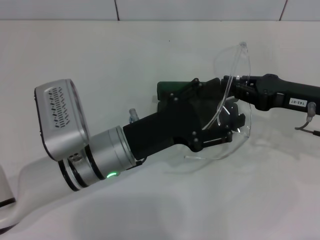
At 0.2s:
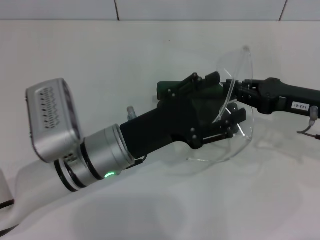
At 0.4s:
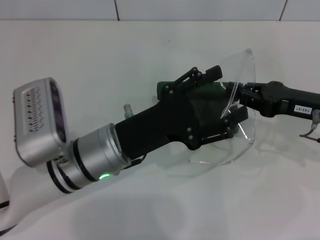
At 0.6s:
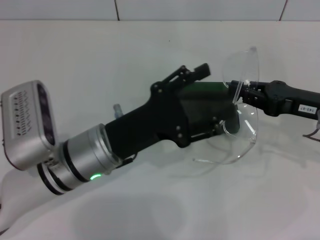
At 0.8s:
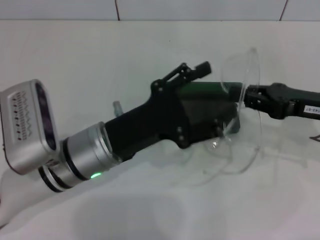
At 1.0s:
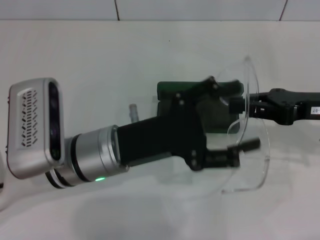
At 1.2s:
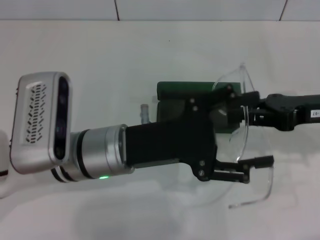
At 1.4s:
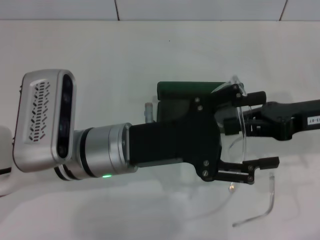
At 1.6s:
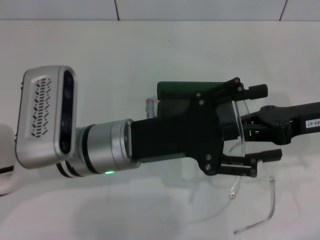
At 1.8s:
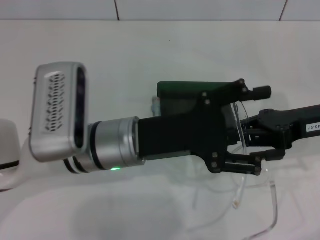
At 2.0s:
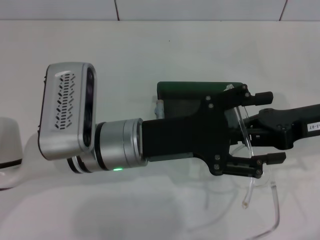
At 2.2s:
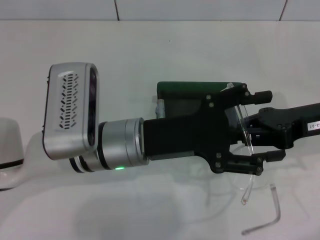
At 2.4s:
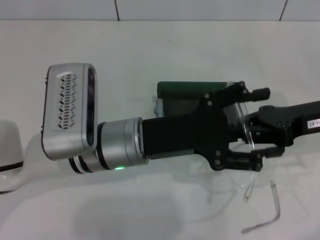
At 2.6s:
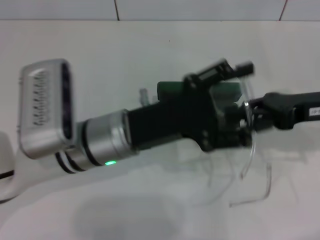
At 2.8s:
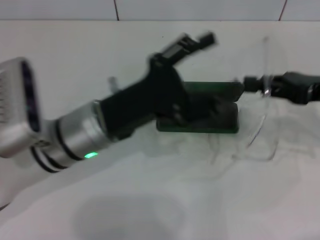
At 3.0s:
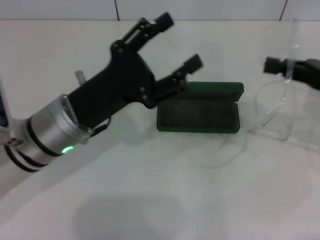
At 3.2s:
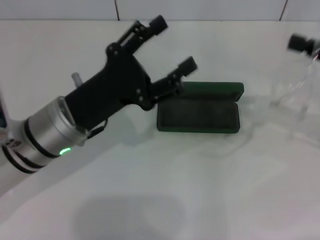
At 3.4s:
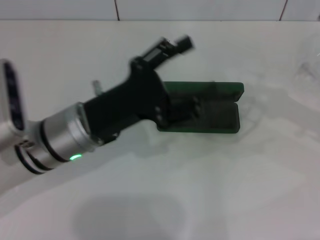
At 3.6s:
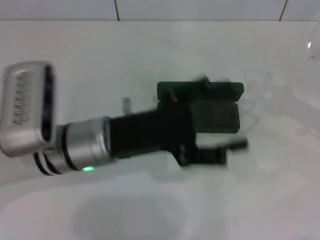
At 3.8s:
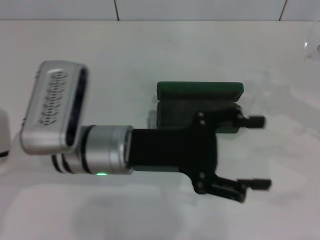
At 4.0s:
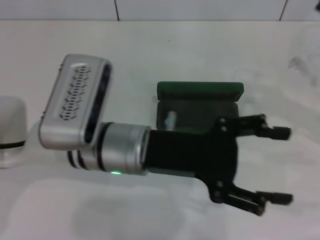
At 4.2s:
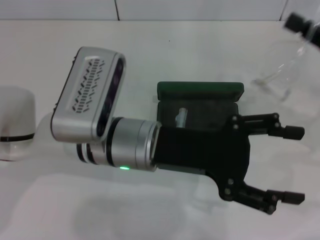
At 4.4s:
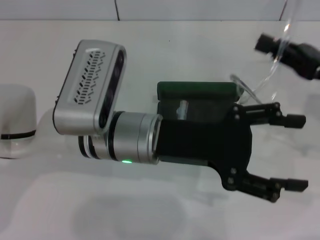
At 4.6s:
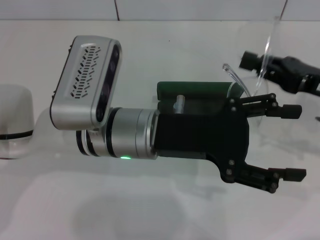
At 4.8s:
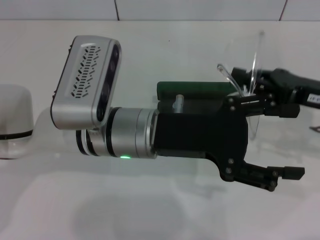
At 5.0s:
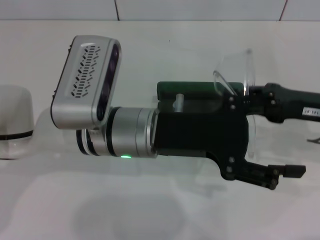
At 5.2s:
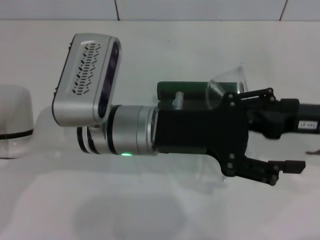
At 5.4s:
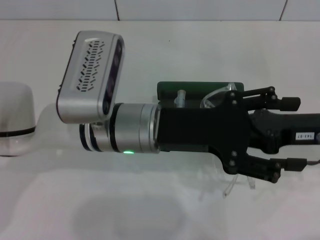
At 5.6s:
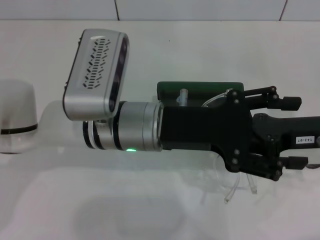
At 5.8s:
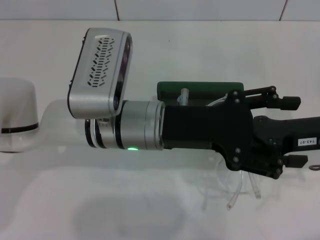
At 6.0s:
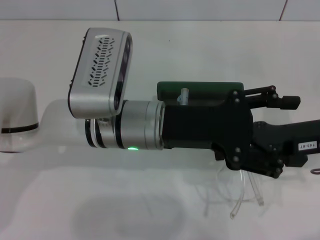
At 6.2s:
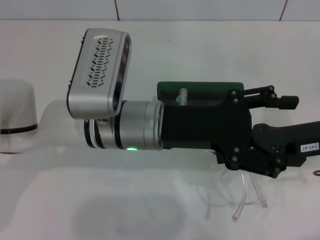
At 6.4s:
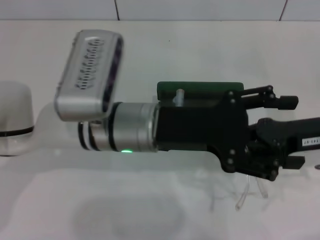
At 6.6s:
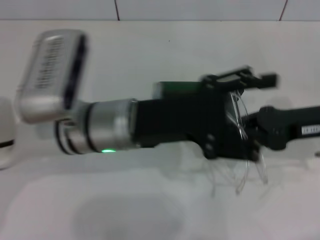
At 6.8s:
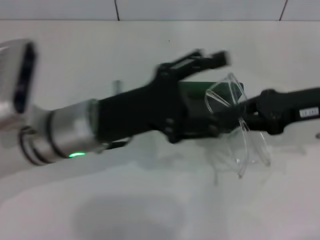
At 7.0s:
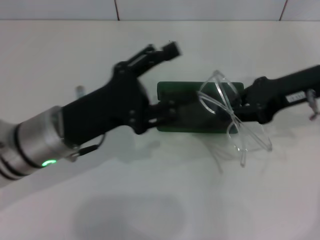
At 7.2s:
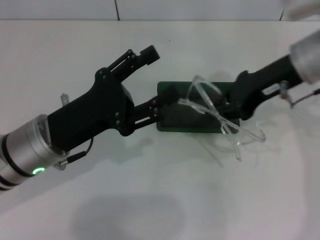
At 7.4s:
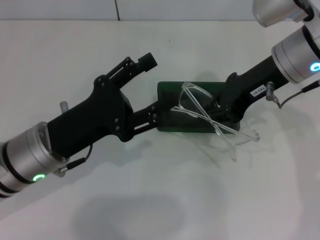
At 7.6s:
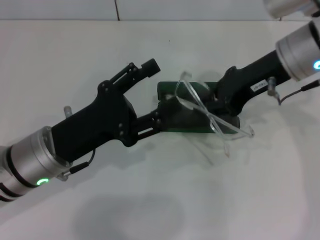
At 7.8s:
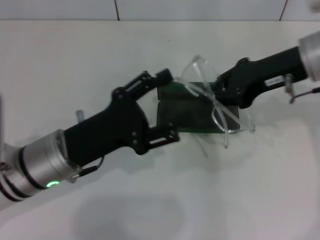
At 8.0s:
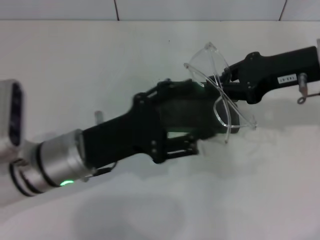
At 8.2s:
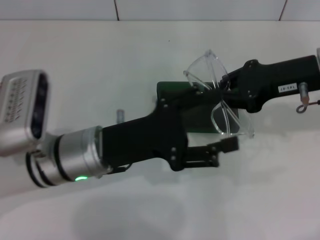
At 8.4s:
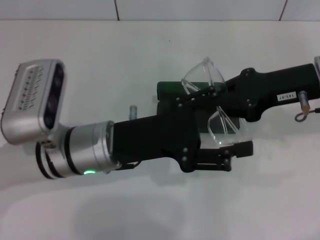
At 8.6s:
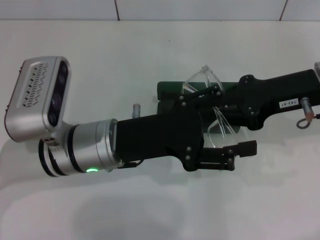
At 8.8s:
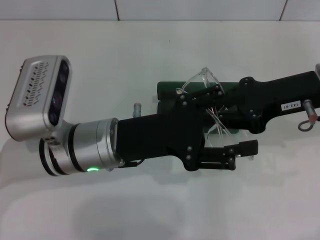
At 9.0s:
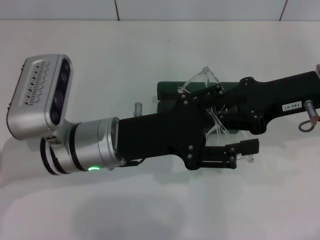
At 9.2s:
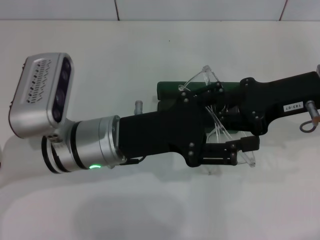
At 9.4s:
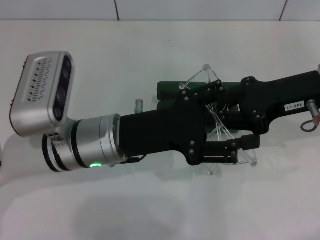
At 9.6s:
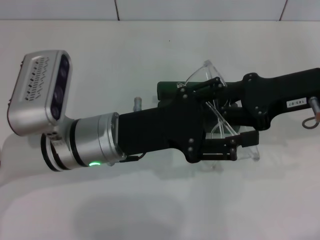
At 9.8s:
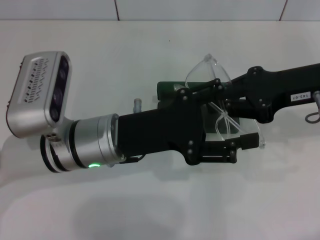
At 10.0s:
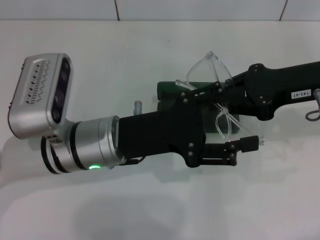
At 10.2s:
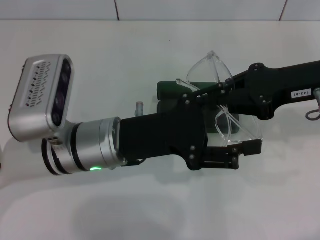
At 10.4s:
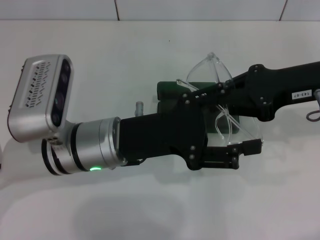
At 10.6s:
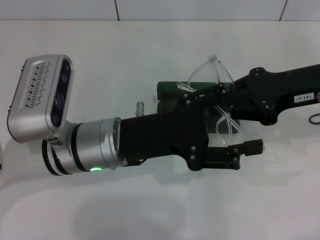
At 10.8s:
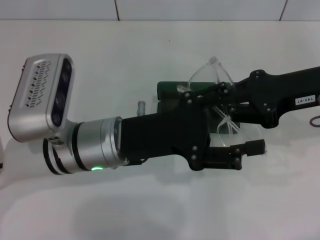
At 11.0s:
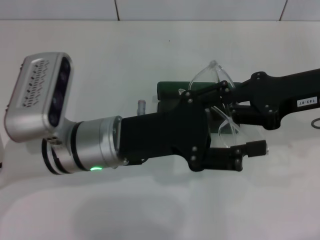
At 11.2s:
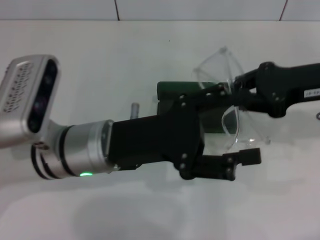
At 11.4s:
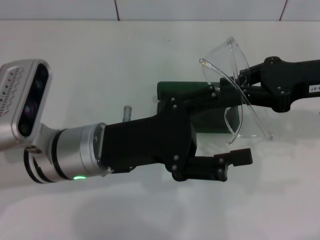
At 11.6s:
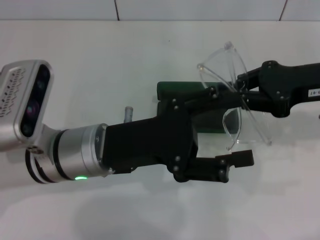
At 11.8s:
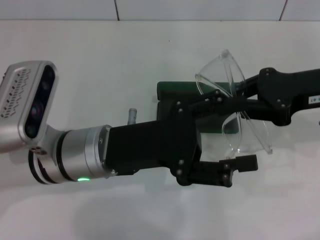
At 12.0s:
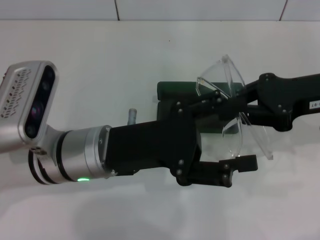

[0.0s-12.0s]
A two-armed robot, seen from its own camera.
Step, 0.0s to 5.4s: Fold the frame with your left hand.
1.6s to 3.0s: The left gripper heads to the left, covering about 5 cm. Meanwhile the right gripper shifts about 5 cm to the right.
3.0s to 4.4s: The left gripper heads to the right, covering some 10 cm.
6.0s to 7.6s: The right gripper moves upward, to the left and forward, roughly 15 cm. Meanwhile the left gripper shifts some 10 cm to the left.
7.6s to 9.0s: The left gripper is displaced to the right by approximately 5 cm. The right gripper shifts by about 5 cm.
9.0s to 10.4s: Neither gripper changes place.

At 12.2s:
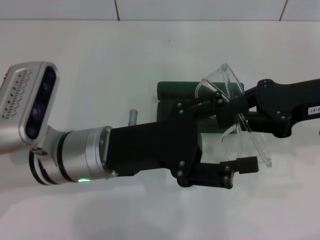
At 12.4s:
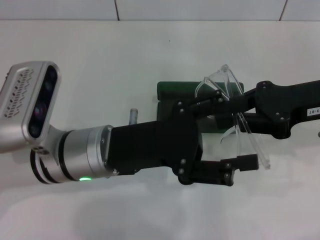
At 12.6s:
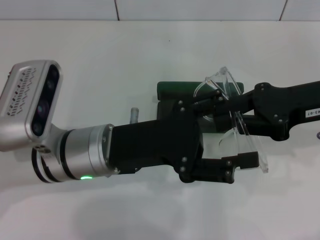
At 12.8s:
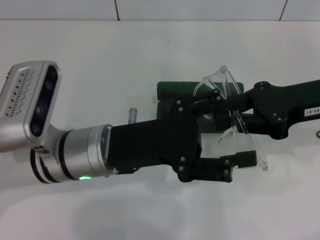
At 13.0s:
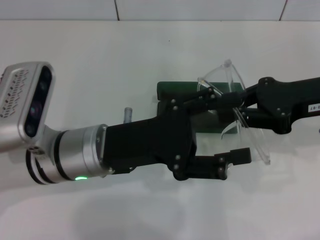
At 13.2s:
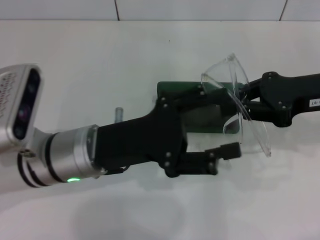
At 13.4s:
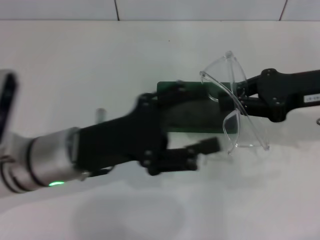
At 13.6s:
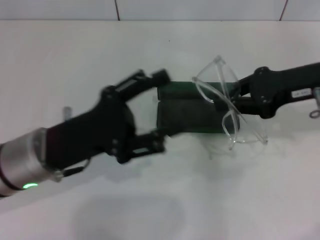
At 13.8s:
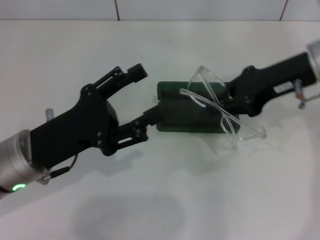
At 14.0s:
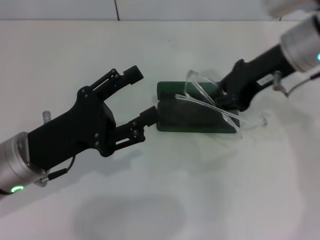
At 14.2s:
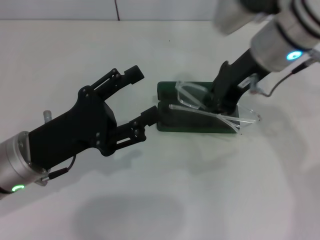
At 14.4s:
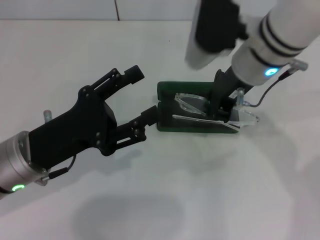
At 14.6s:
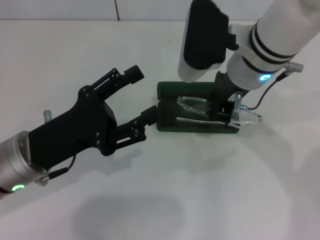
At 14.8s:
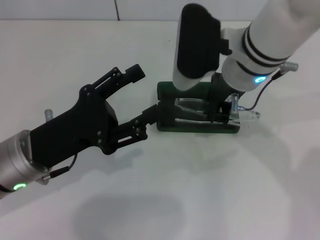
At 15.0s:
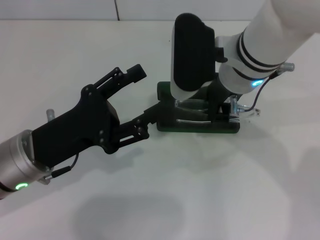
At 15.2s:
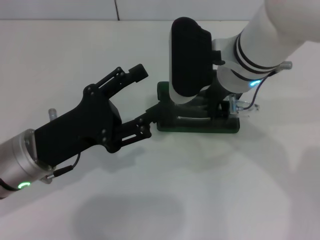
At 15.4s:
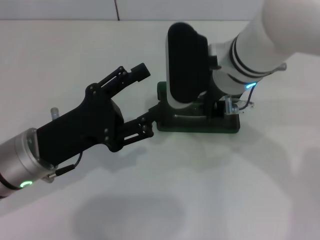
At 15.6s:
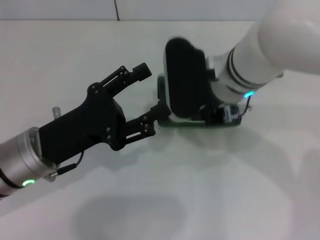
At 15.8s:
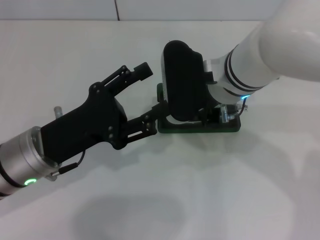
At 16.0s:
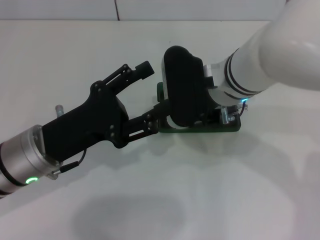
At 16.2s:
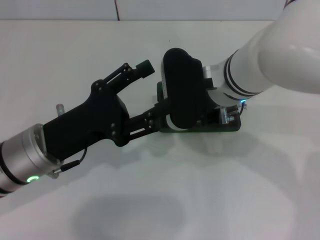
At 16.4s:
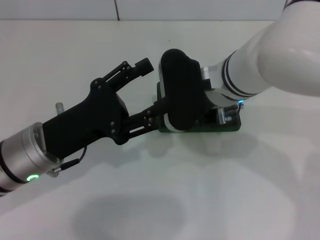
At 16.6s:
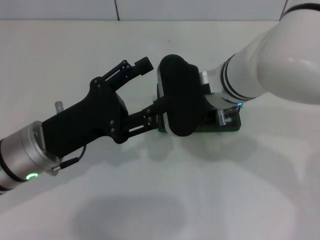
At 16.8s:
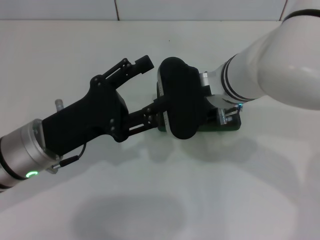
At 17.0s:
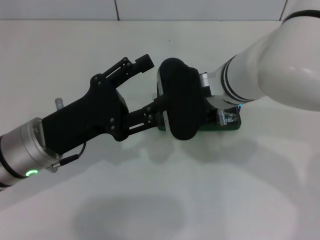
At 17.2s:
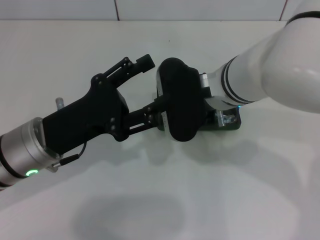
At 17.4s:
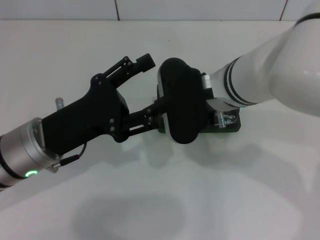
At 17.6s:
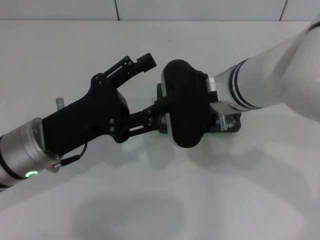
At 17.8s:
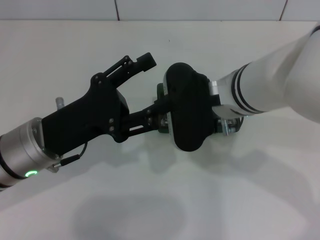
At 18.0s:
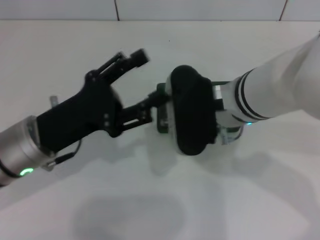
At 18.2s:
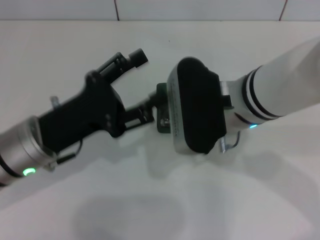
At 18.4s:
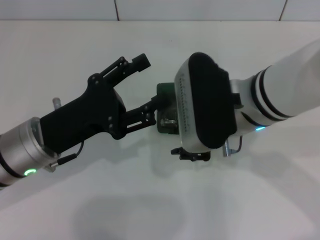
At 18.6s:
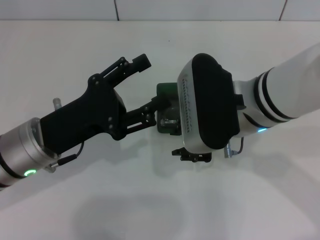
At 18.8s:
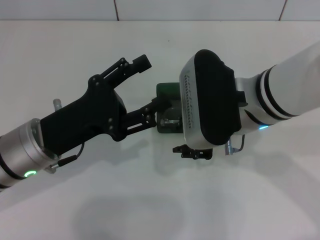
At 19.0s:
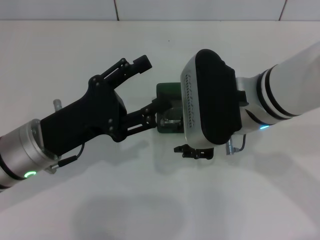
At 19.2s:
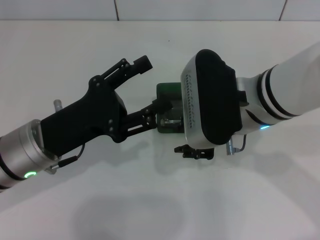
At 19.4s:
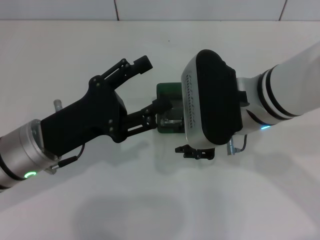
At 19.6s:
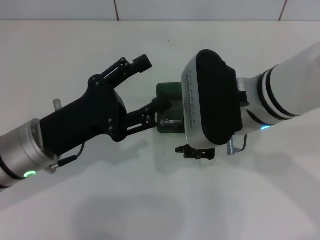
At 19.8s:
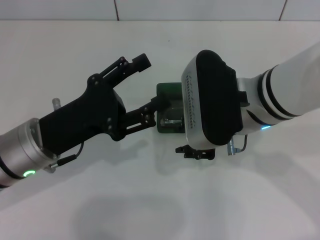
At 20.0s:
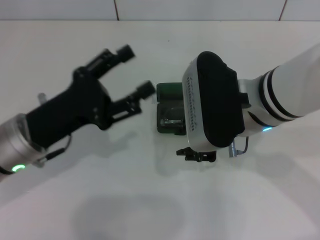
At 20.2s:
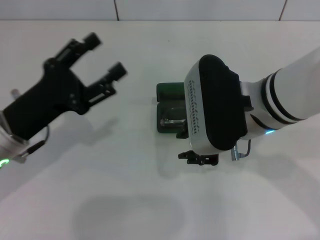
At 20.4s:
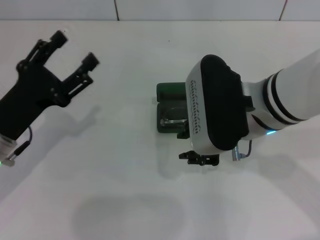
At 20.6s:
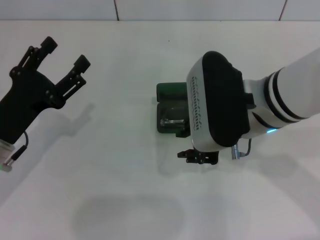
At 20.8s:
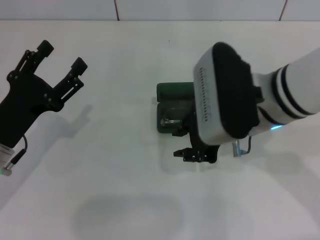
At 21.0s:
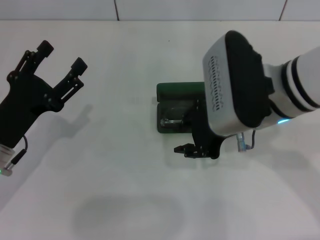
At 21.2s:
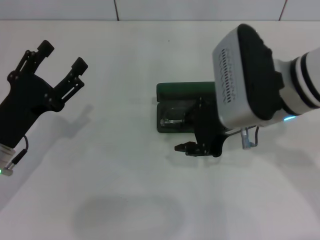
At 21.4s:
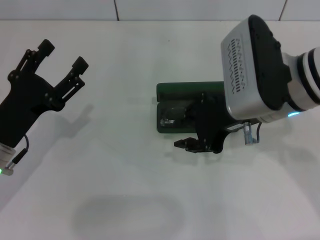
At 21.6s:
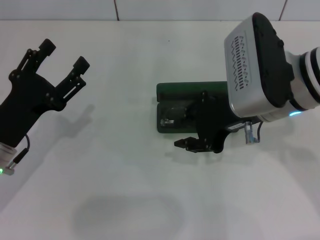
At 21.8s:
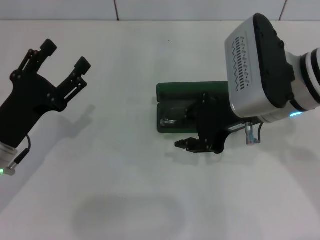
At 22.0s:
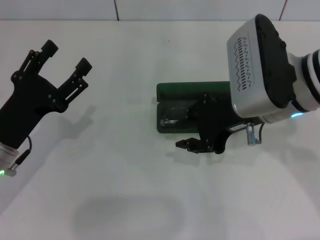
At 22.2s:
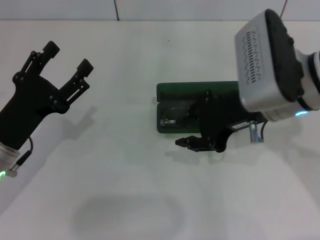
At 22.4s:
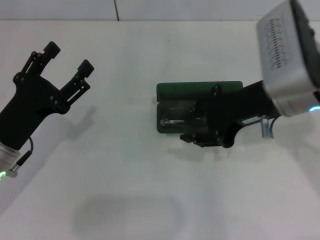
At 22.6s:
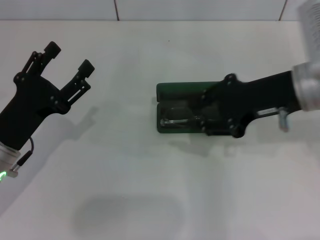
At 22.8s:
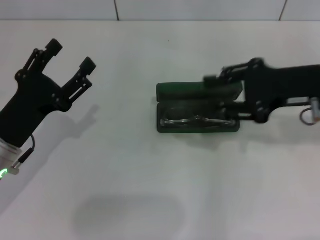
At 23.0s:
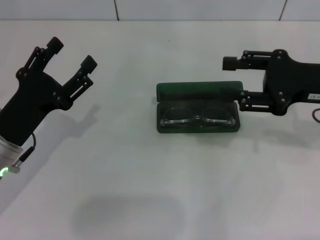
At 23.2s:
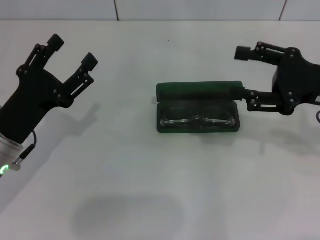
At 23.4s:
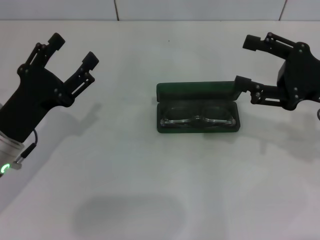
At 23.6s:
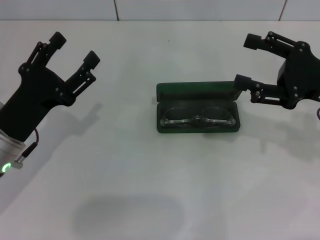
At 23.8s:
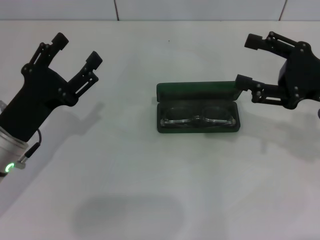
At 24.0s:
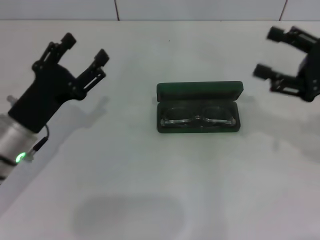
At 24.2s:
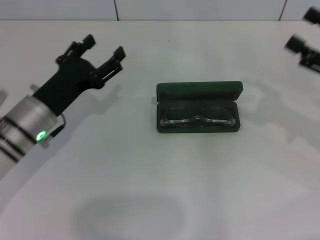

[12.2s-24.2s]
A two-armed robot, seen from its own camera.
Step, 12.2s to 17.2s: Put the glasses into the case with your right hand.
12.2s to 13.8s: The right gripper moves some 5 cm, while the left gripper travels to the left by approximately 10 cm.
13.8s to 15.2s: The right gripper goes some 15 cm to the left.
16.6s to 18.2s: The right gripper changes place by some 5 cm.
18.2s to 19.8s: The grippers make only small movements.
19.8s to 21.2s: The left gripper goes some 5 cm to the left.
21.2s to 22.6s: The right gripper shifts roughly 5 cm to the right.
22.6s to 24.2s: The left gripper travels forward by about 5 cm; the right gripper moves to the right and downward, approximately 15 cm, and opens.
